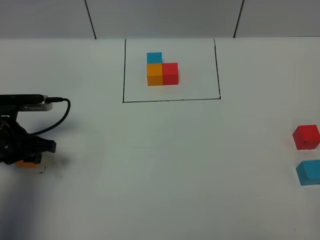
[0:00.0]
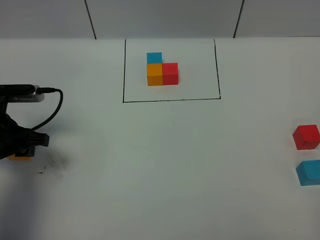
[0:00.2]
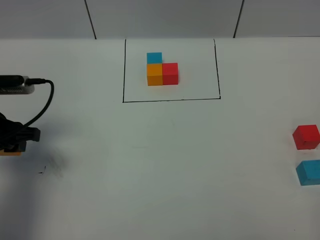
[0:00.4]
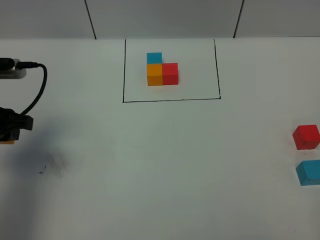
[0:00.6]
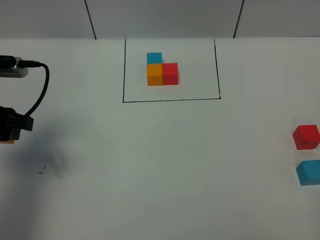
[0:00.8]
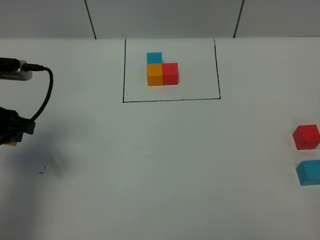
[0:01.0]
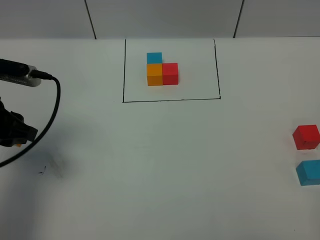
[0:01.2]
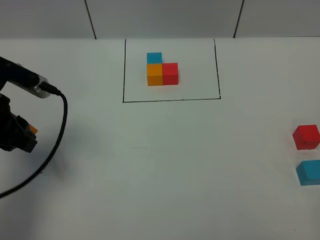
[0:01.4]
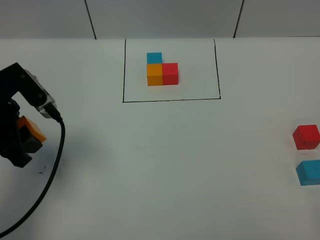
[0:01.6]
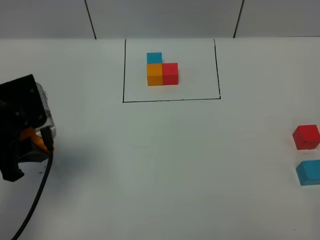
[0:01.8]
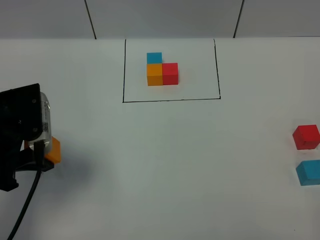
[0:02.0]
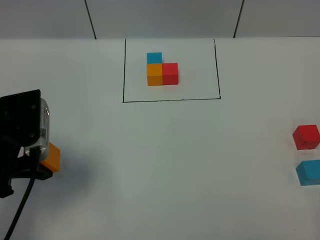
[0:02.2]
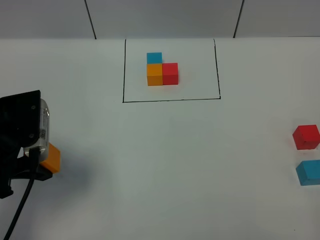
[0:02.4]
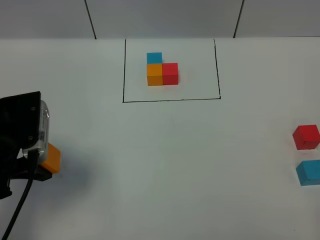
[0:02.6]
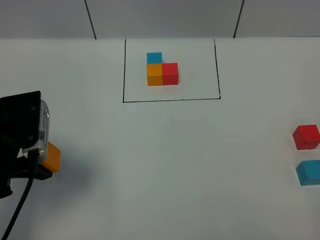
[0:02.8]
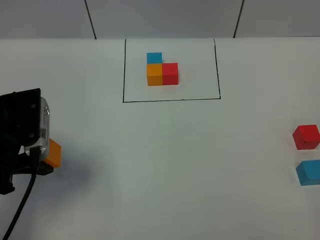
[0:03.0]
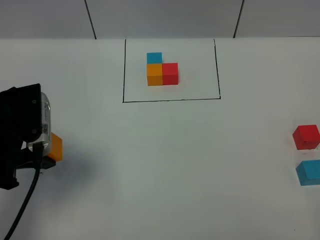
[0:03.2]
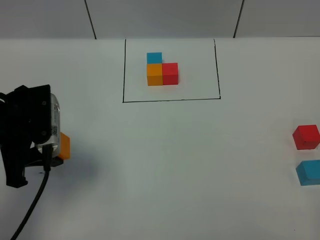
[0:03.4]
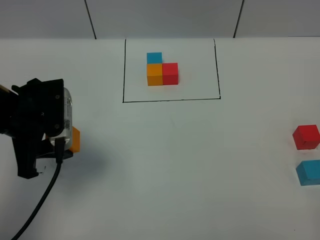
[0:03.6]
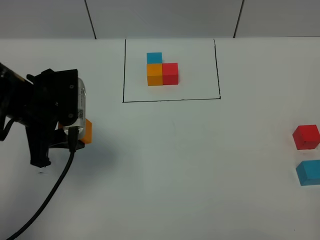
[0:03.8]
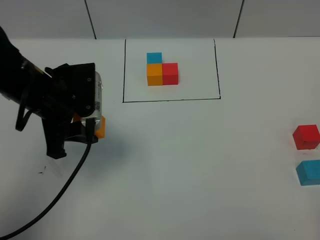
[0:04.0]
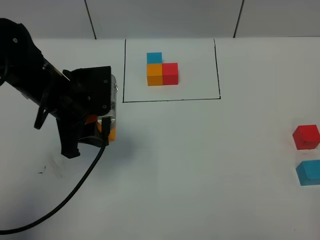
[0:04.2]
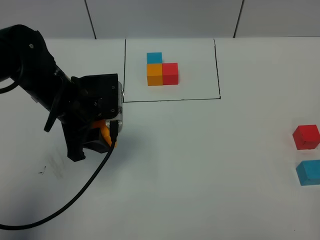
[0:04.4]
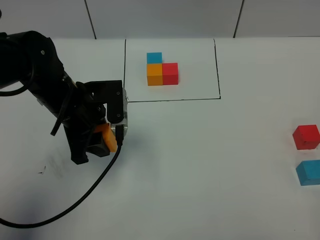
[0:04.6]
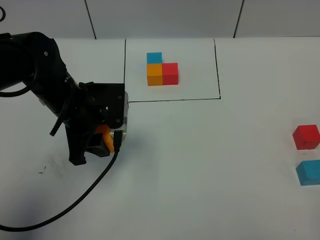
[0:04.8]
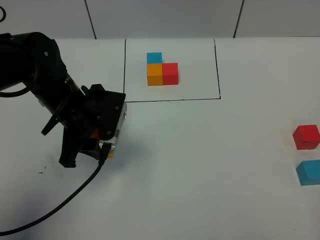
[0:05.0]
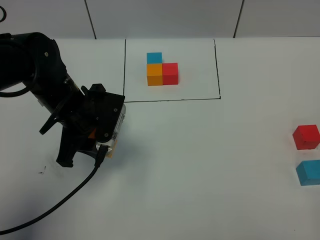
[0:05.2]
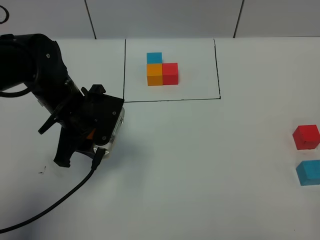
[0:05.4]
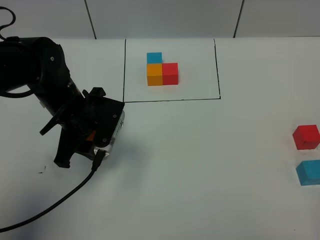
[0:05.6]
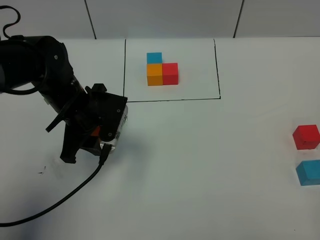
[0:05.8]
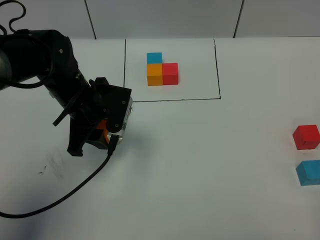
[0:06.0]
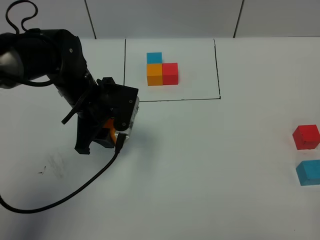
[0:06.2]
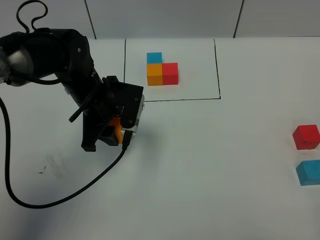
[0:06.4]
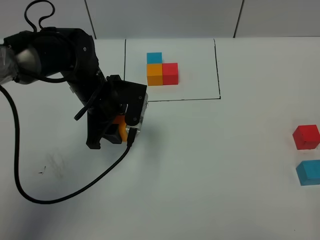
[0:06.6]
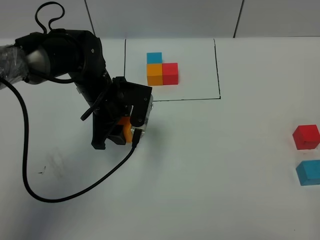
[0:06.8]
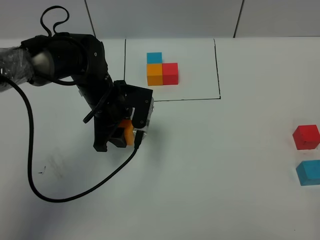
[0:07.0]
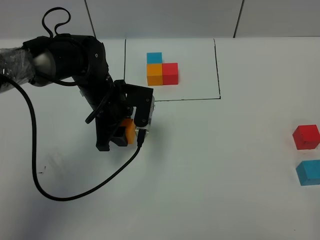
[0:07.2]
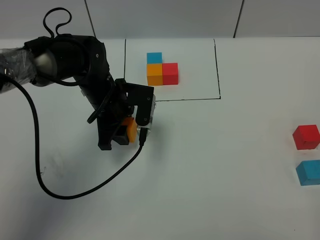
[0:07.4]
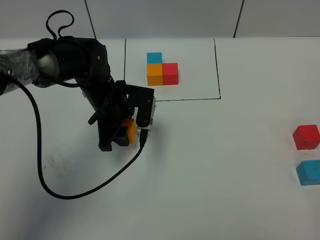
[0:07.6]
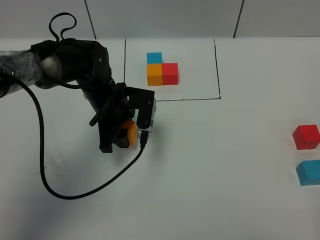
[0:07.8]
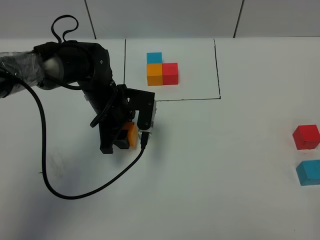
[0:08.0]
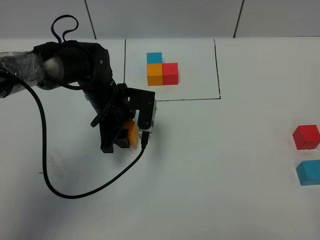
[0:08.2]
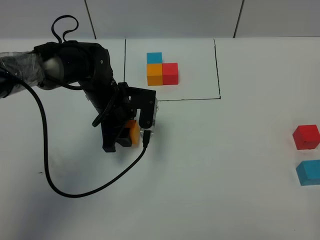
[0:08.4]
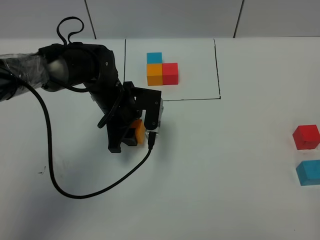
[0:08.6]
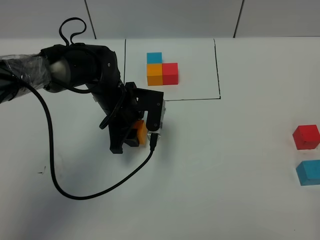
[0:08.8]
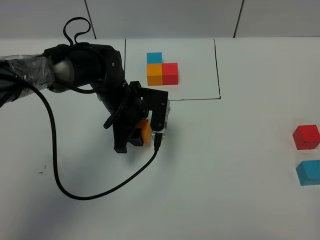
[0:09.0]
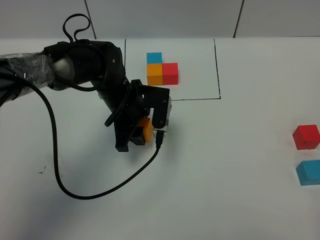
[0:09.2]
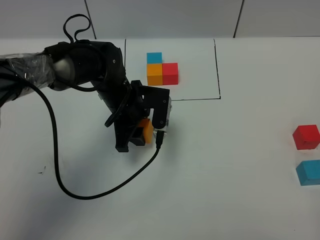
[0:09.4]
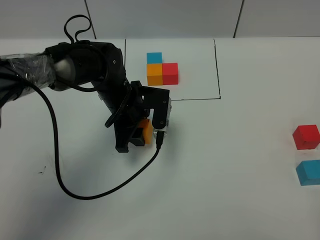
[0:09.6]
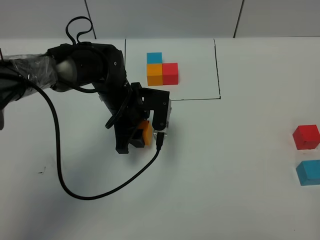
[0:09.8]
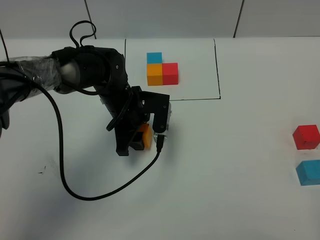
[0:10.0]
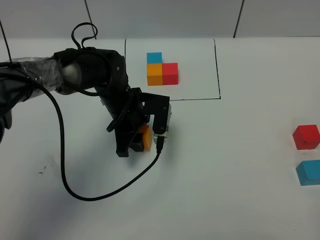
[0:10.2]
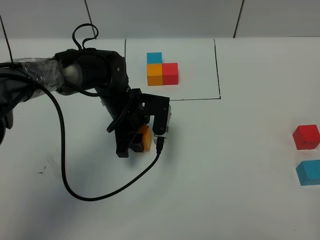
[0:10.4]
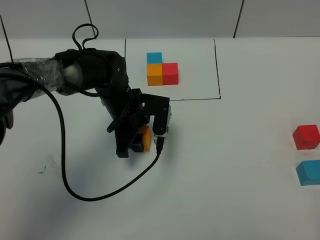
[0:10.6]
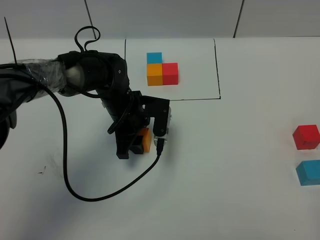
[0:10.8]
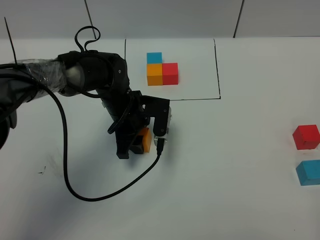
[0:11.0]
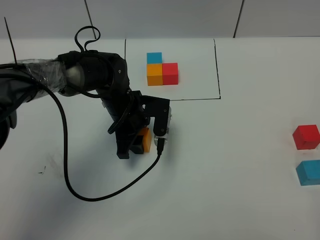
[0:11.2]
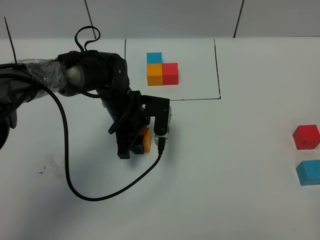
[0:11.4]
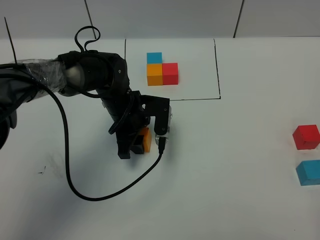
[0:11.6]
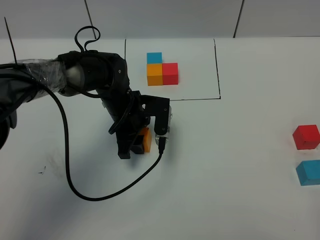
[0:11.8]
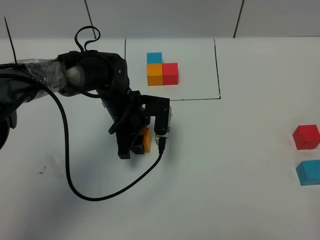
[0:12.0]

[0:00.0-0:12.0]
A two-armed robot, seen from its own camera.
Task of the whole recording: According to the building block template in front, assemble the scattered blocks together.
0:00.0 to 0:01.6: The left gripper goes some 10 cm upward.
0:03.0 to 0:04.4: The left gripper moves to the right and forward, approximately 10 cm.
0:06.0 to 0:07.6: The left gripper ends up approximately 5 cm from where it was.
0:07.6 to 0:10.4: The grippers move only a little.
0:10.4 to 0:12.0: Neither gripper changes place.

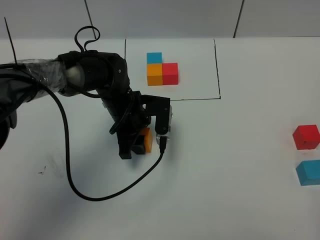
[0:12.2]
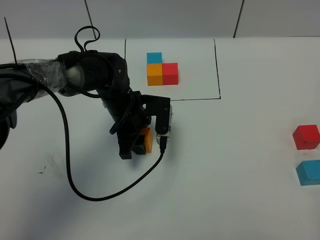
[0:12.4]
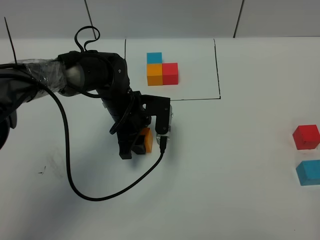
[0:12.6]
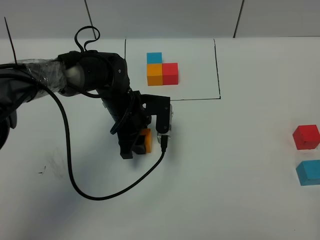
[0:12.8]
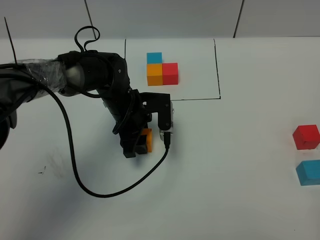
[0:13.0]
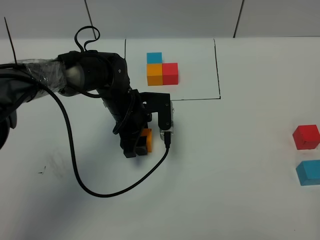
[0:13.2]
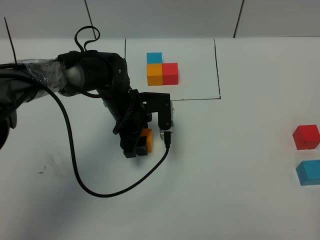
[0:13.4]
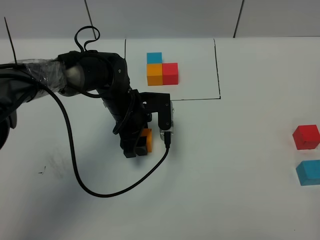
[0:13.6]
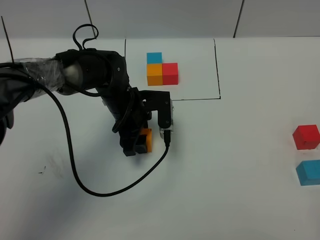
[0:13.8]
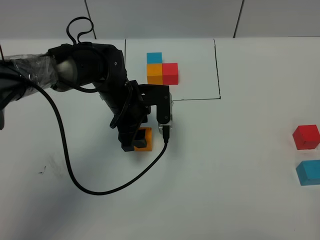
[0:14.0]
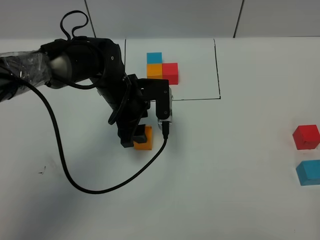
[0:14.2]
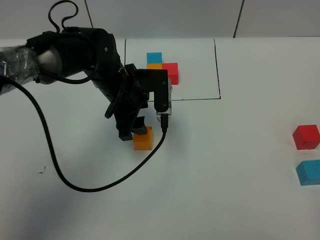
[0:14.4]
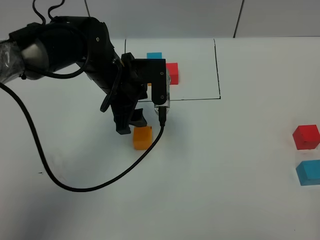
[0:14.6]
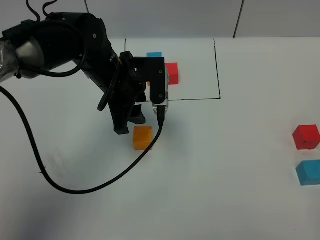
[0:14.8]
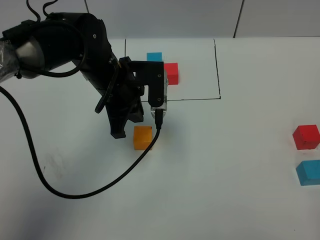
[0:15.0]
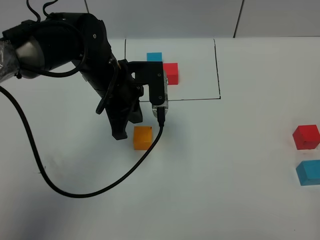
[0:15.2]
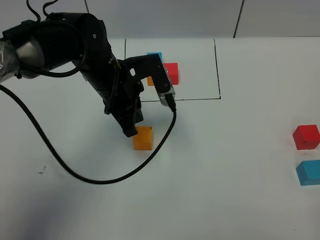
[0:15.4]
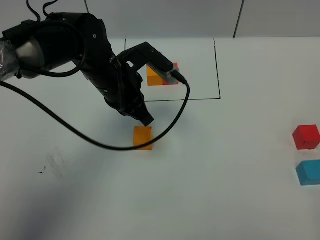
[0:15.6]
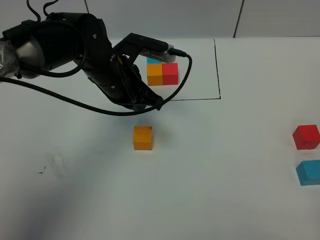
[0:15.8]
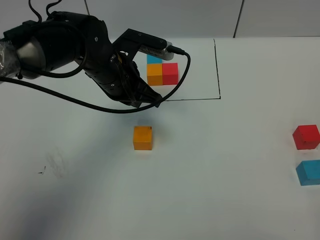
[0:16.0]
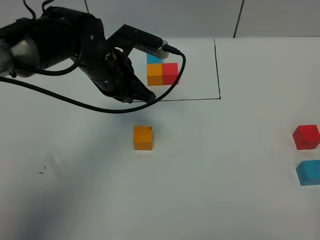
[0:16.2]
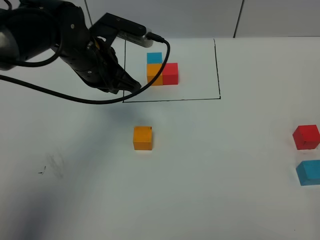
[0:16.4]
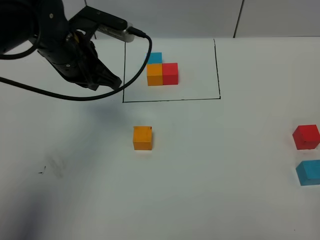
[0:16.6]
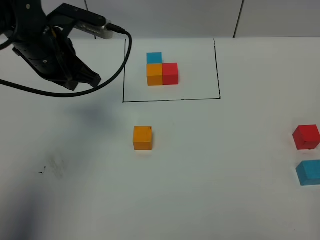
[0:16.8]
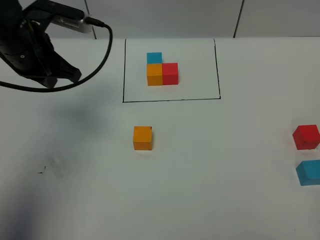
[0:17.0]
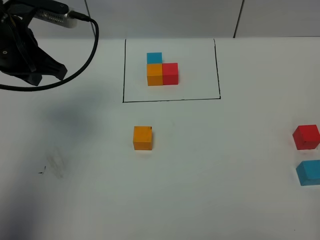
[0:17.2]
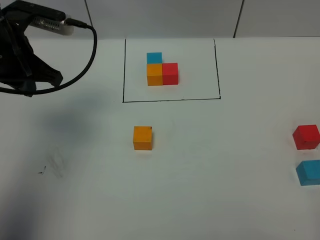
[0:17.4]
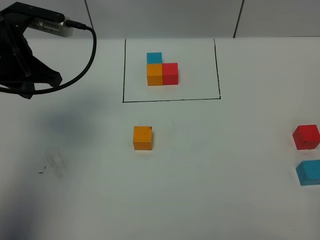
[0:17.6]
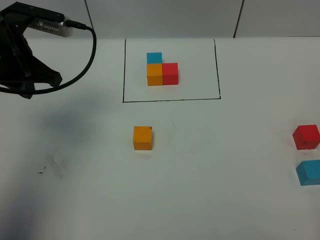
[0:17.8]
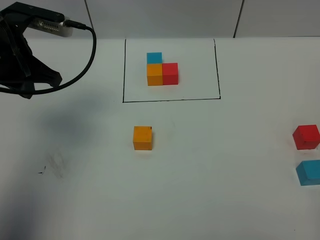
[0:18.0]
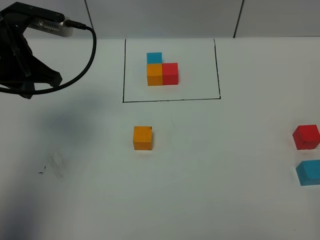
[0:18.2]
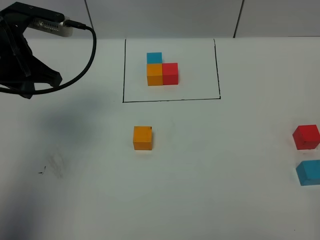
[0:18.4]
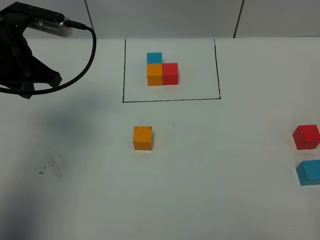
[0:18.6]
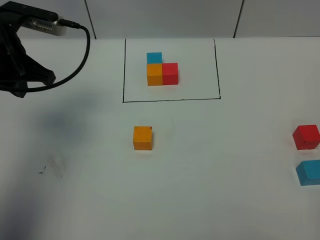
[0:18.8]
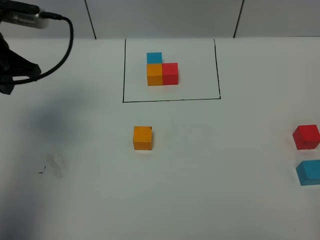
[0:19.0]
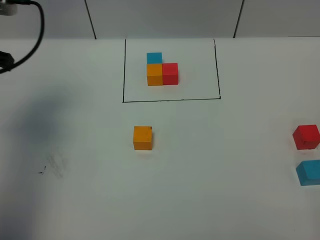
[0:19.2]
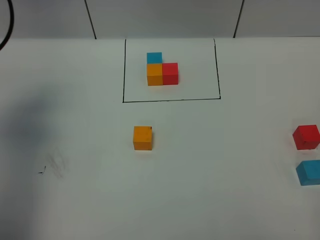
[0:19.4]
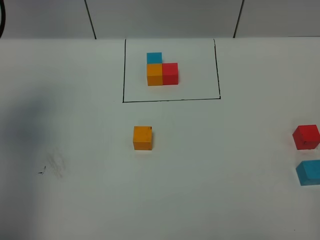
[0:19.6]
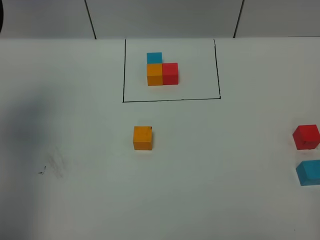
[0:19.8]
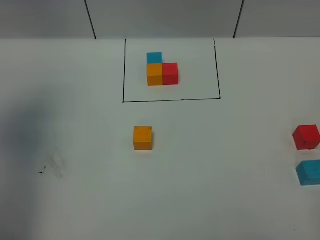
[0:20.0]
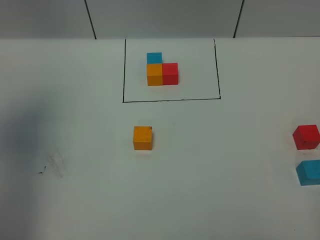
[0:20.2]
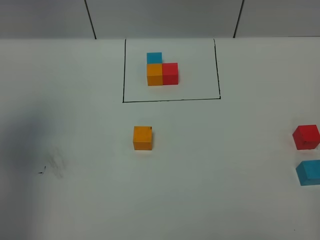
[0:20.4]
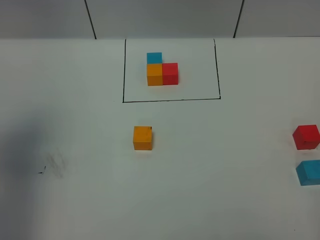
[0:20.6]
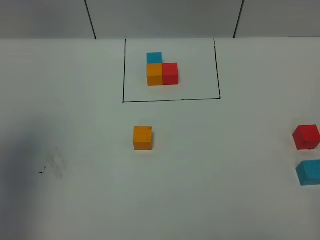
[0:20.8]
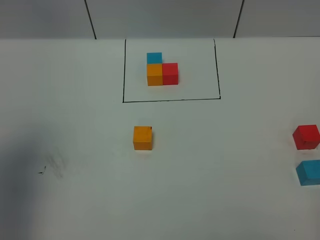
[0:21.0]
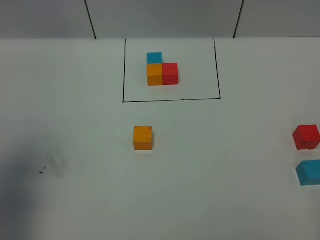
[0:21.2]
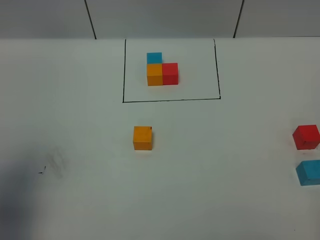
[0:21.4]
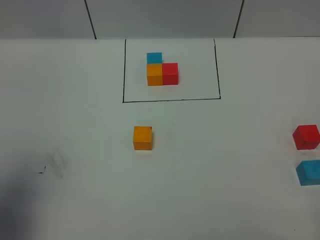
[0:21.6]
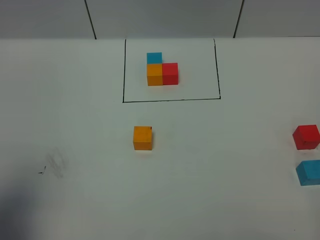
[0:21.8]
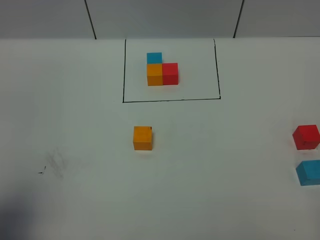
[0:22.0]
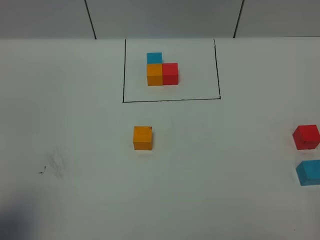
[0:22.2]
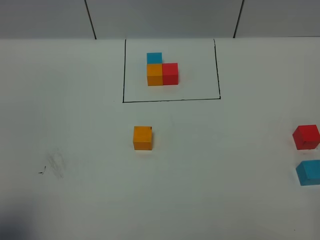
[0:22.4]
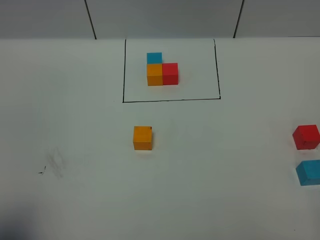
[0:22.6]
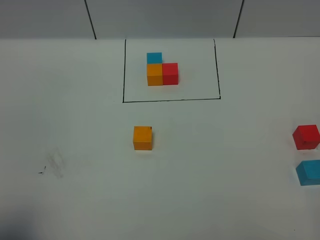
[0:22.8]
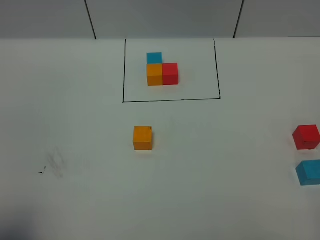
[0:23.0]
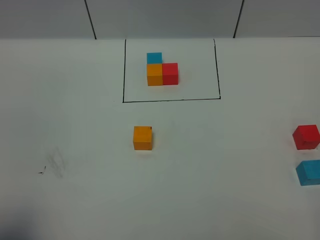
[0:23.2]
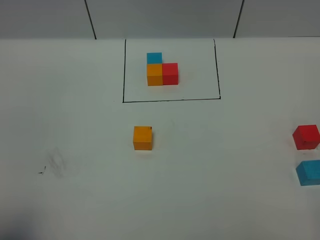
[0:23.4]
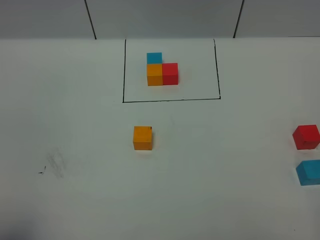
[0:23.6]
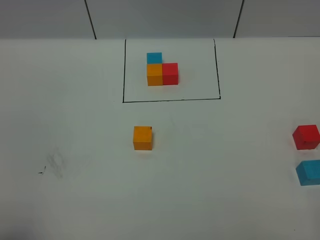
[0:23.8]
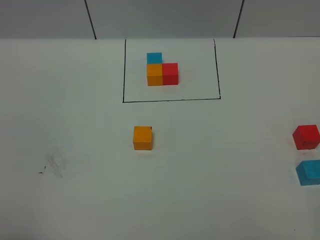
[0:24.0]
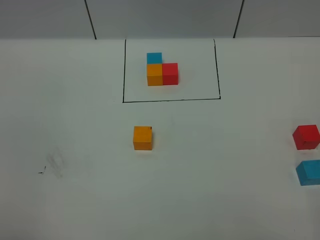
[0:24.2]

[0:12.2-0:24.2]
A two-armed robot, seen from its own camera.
Task of the whole recording: According to the building block template in front, assemble the scattered blocks together.
0:12.2 to 0:13.8: The grippers make only small movements.
0:13.8 to 0:15.2: The left gripper goes some 10 cm upward, and closes its fingers.
0:15.2 to 0:16.6: The left gripper heads to the left, covering some 5 cm.
0:16.6 to 0:18.2: The left gripper heads to the left, covering approximately 5 cm.
0:18.2 to 0:19.8: The left gripper shifts roughly 10 cm to the left and upward.
0:19.8 to 0:21.2: The left gripper is displaced backward by about 15 cm.
0:21.2 to 0:22.6: The left gripper is displaced backward and downward by approximately 15 cm.
0:22.6 to 0:24.2: The left gripper moves backward, roughly 5 cm.
